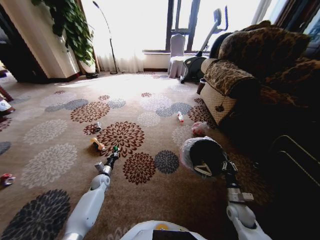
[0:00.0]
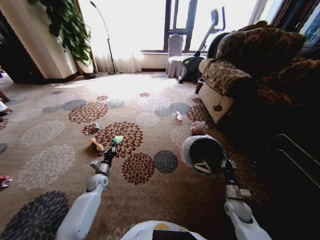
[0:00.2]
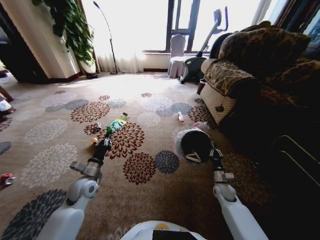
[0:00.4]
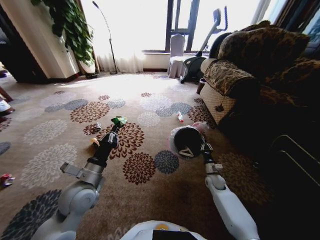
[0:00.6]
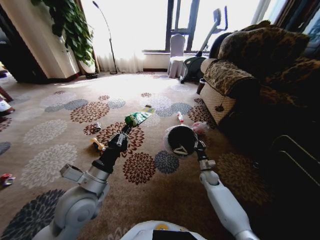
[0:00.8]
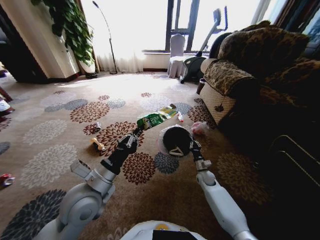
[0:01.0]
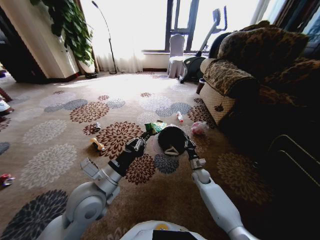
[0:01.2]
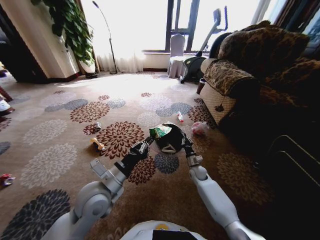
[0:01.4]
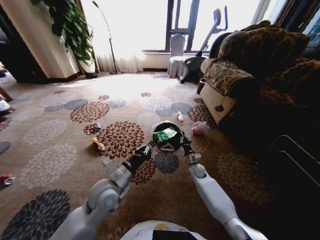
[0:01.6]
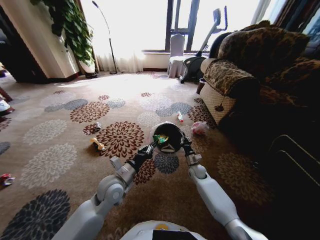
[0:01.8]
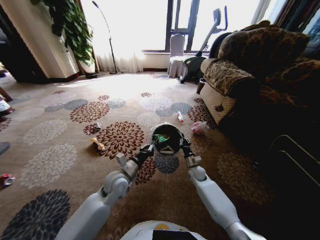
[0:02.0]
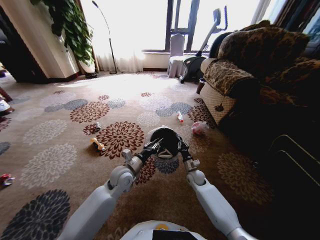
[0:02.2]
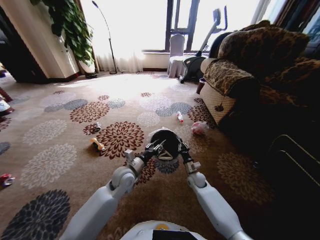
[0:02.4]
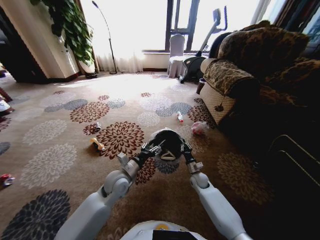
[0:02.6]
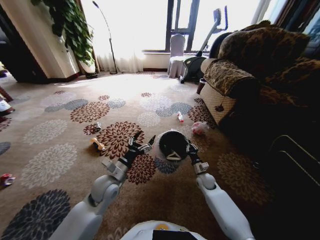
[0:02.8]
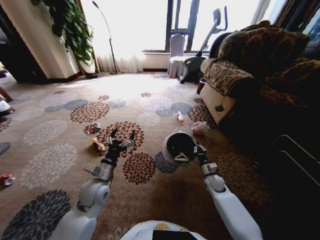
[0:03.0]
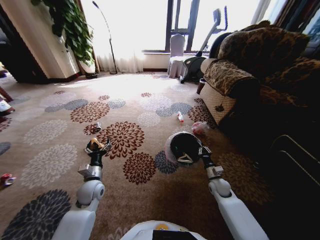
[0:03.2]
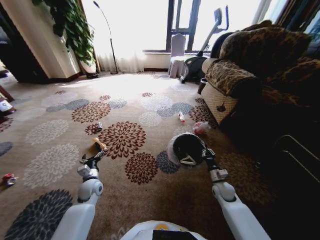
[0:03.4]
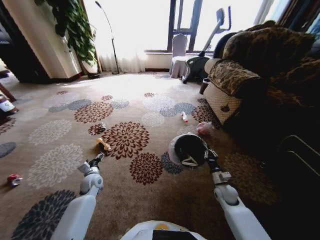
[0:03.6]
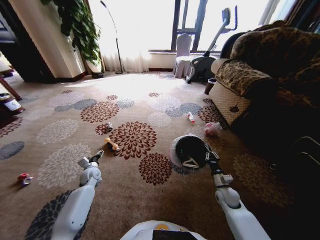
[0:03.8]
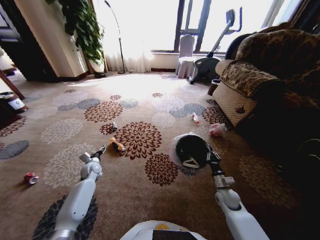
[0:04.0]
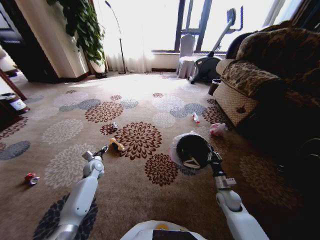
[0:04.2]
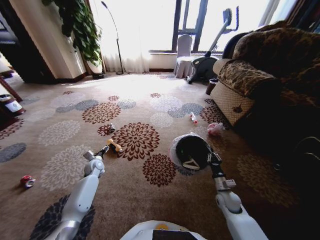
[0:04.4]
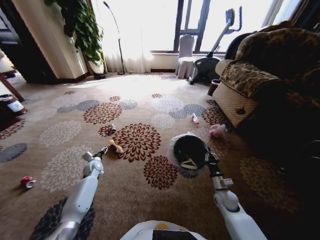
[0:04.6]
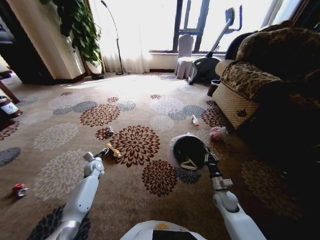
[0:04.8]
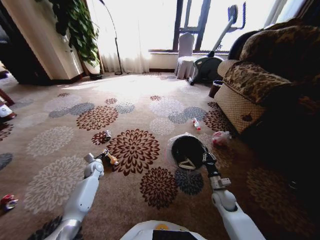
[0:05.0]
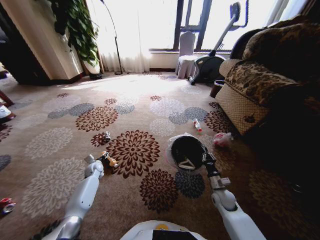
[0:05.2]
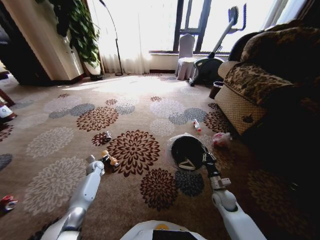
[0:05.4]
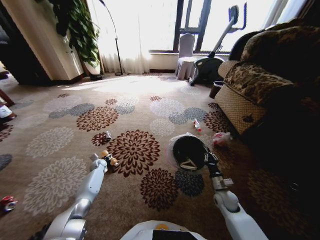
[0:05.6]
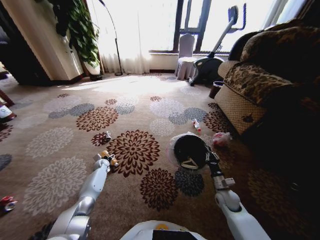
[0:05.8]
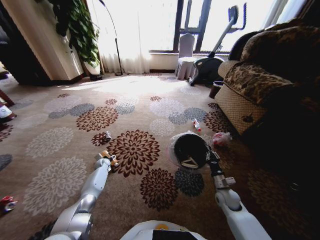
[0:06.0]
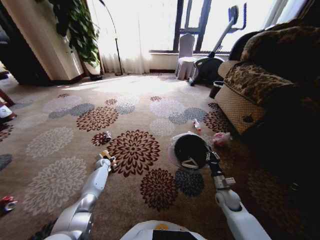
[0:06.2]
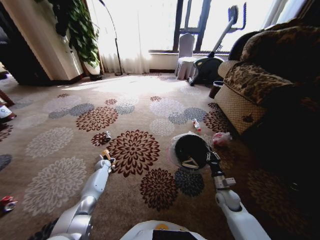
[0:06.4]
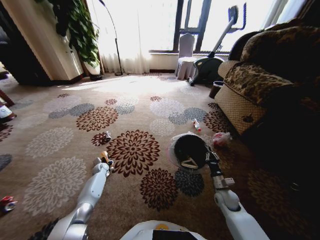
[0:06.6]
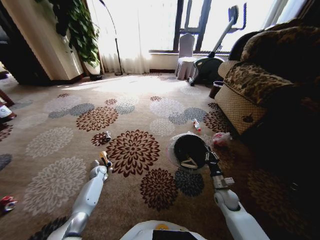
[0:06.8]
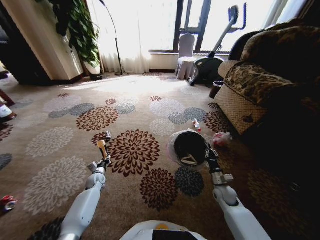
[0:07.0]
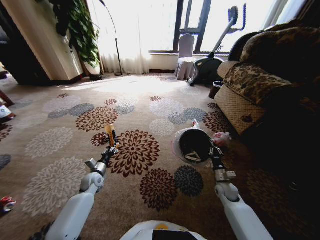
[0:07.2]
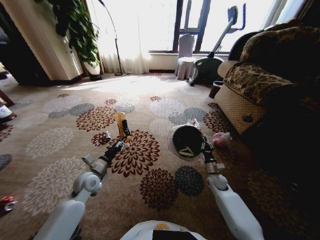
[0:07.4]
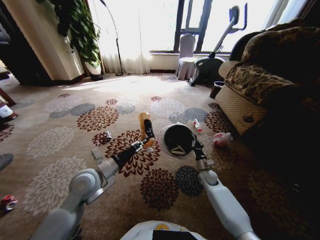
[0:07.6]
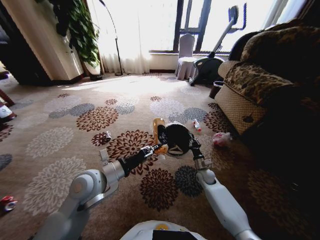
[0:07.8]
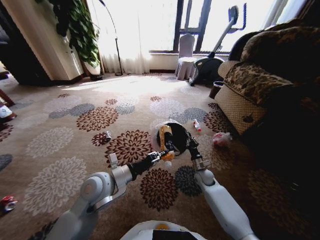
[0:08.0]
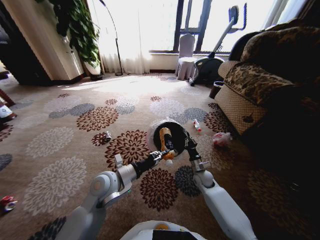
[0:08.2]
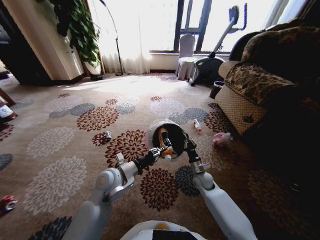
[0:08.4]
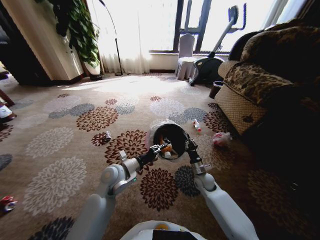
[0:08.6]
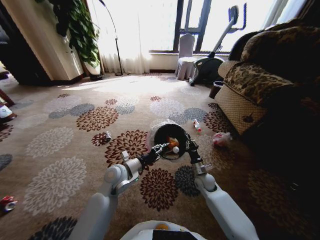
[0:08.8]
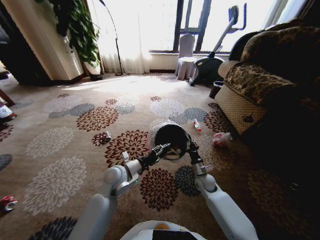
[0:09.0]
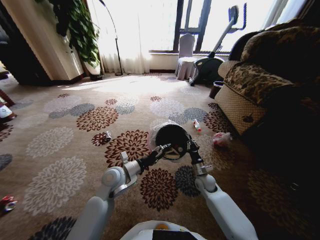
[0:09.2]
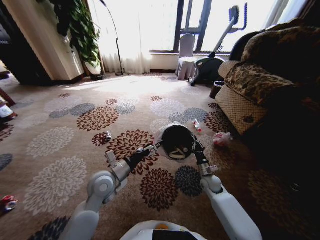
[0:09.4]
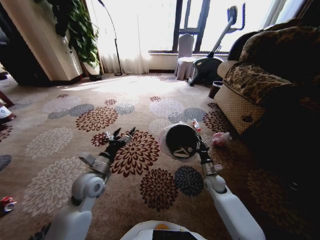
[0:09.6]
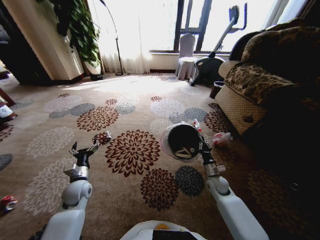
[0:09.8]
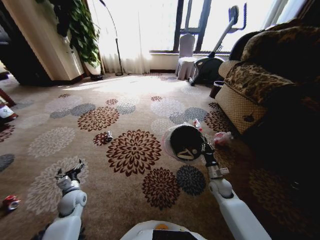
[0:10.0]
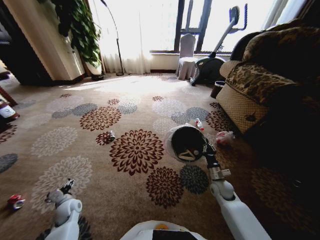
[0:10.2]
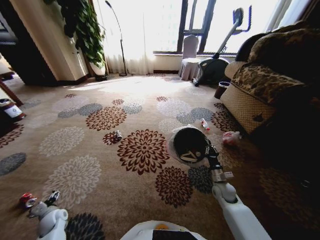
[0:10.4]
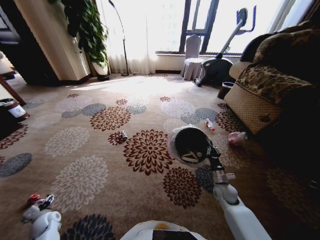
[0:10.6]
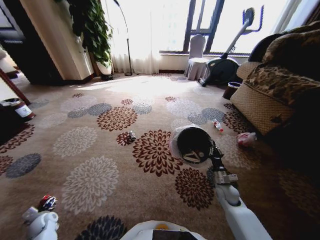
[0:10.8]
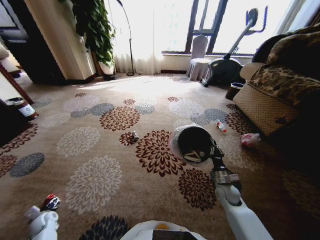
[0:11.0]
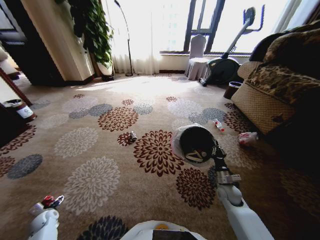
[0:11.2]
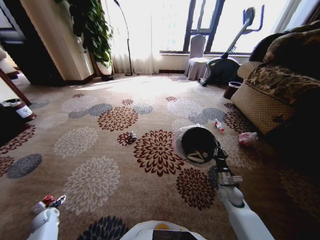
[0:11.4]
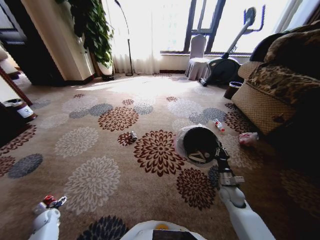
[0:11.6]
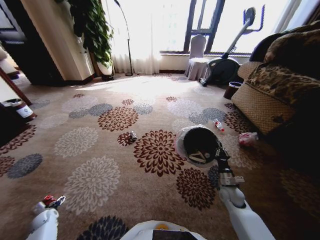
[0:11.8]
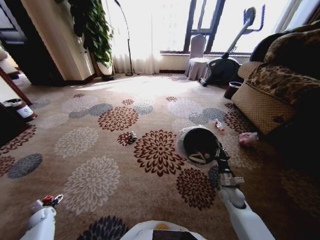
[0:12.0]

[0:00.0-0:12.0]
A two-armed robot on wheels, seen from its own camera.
Task of the whole recording: Pick up the trash from the ground and place it into the trash bin.
0.0 to 1.6 s: The right gripper goes about 25 cm forward and to the left. The left gripper is displaced upward, to the right and backward by about 35 cm.
1.6 to 3.0 s: The right gripper heads to the right and backward, covering approximately 10 cm. The left gripper is displaced to the left by some 5 cm, and opens its fingers.
3.0 to 4.4 s: The right gripper moves backward, roughly 10 cm, while the left gripper goes some 25 cm forward, to the left and downward.
4.4 to 6.0 s: The left gripper shifts about 10 cm downward and forward.
6.0 to 7.6 s: The right gripper heads forward, covering about 10 cm. The left gripper shifts approximately 40 cm upward, backward and to the right, and closes.
7.6 to 9.0 s: The right gripper ends up roughly 5 cm from where it was. The left gripper is displaced to the right and downward by some 10 cm, and opens up.
9.0 to 10.4 s: The left gripper shifts about 35 cm to the left and downward. The right gripper travels to the right by roughly 10 cm.
10.4 to 12.0 s: The left gripper moves to the left, approximately 10 cm.

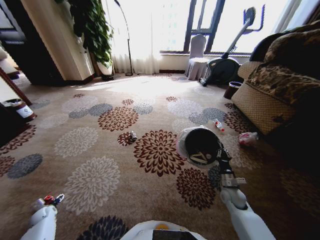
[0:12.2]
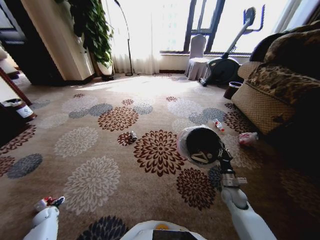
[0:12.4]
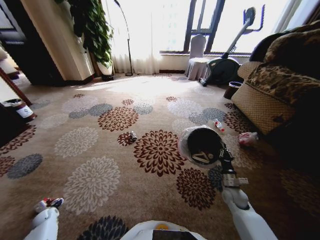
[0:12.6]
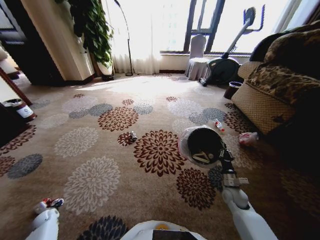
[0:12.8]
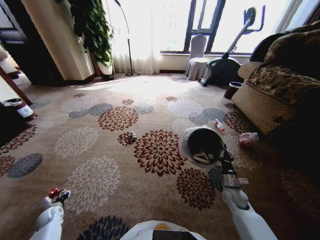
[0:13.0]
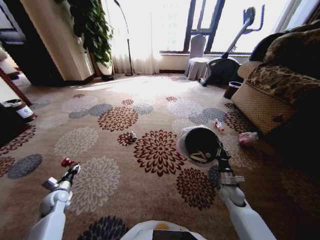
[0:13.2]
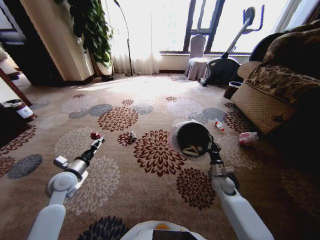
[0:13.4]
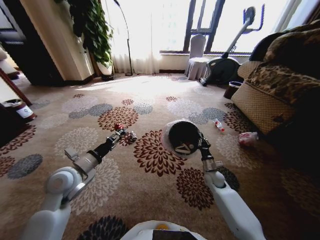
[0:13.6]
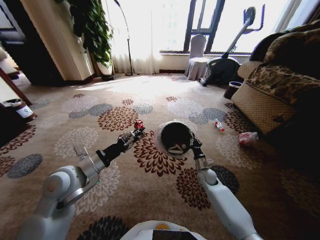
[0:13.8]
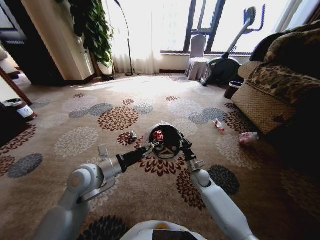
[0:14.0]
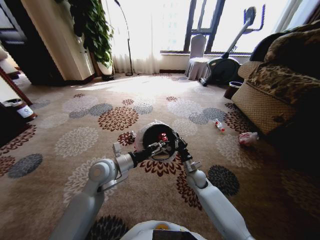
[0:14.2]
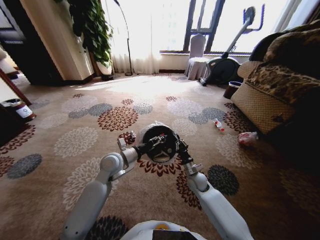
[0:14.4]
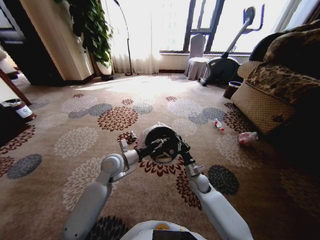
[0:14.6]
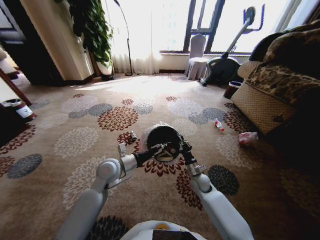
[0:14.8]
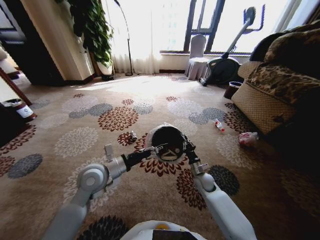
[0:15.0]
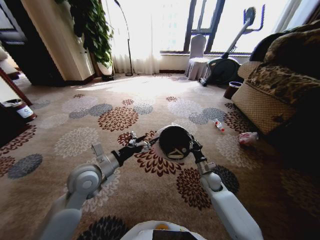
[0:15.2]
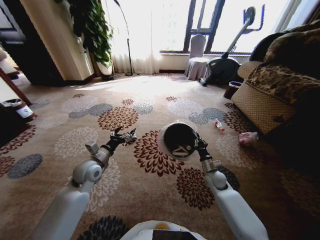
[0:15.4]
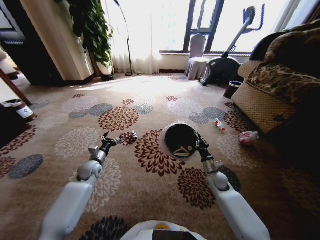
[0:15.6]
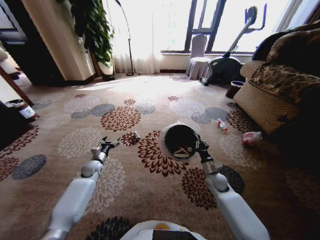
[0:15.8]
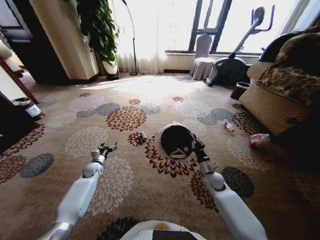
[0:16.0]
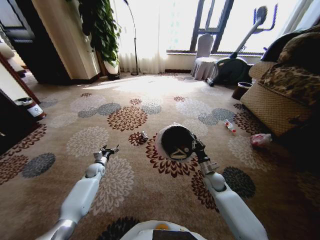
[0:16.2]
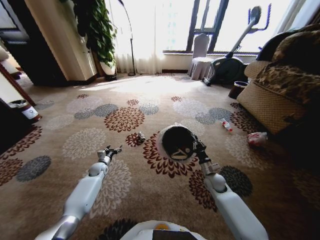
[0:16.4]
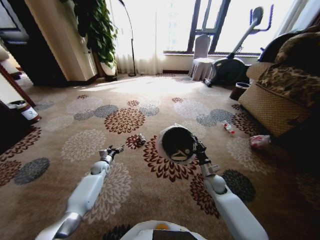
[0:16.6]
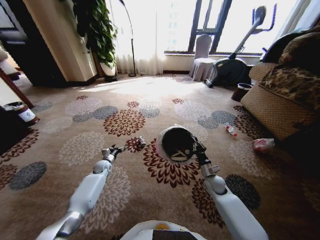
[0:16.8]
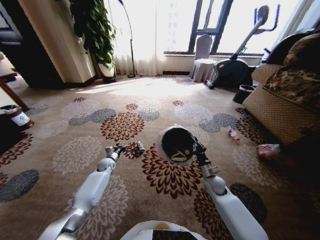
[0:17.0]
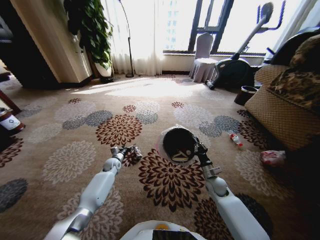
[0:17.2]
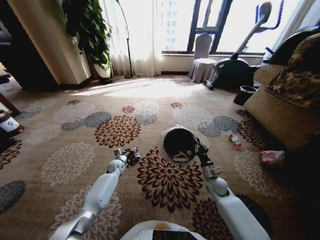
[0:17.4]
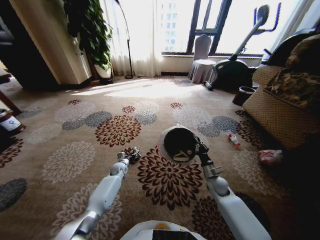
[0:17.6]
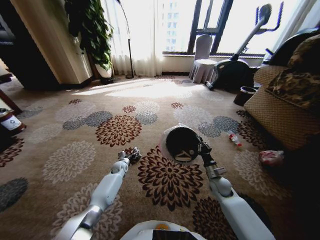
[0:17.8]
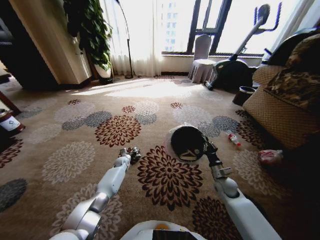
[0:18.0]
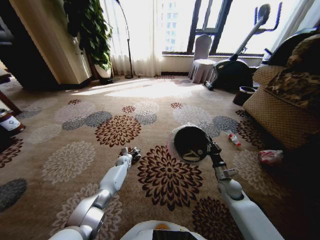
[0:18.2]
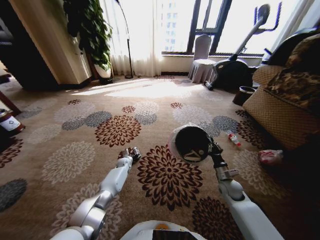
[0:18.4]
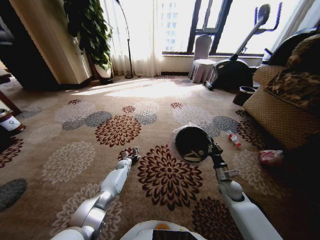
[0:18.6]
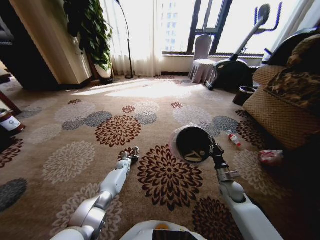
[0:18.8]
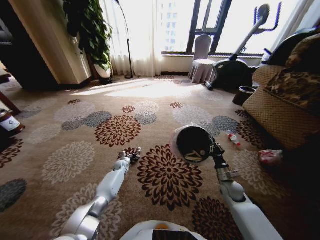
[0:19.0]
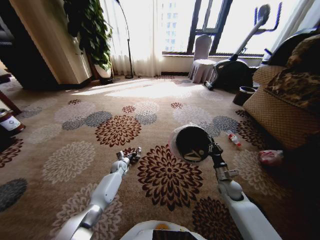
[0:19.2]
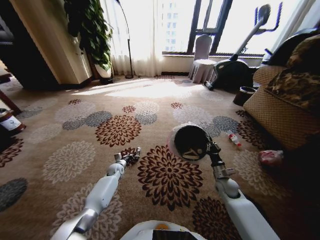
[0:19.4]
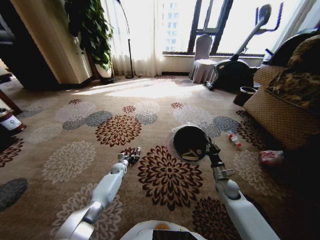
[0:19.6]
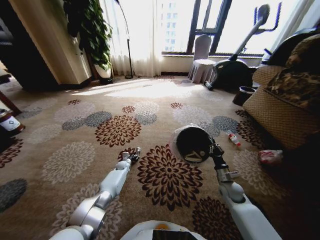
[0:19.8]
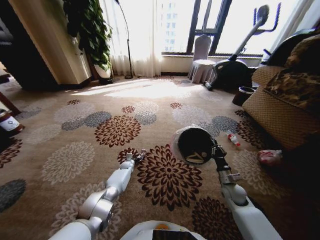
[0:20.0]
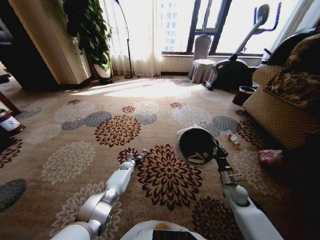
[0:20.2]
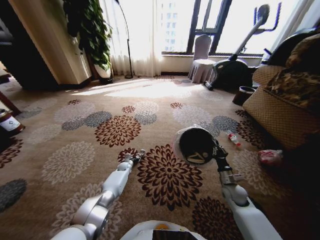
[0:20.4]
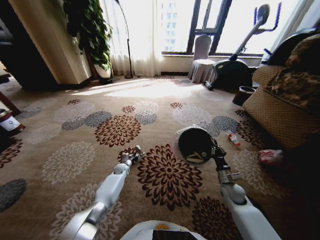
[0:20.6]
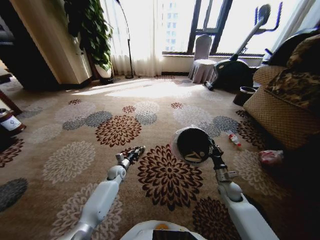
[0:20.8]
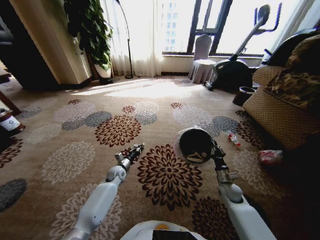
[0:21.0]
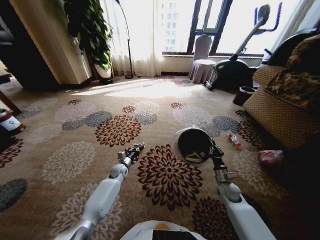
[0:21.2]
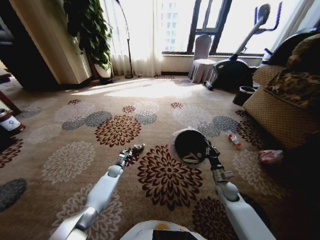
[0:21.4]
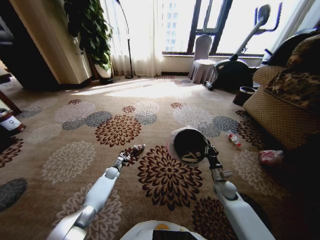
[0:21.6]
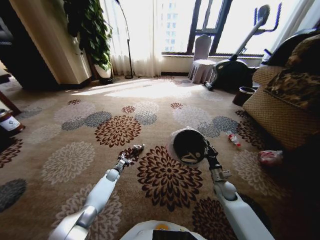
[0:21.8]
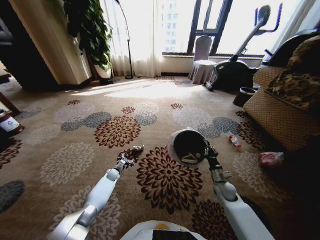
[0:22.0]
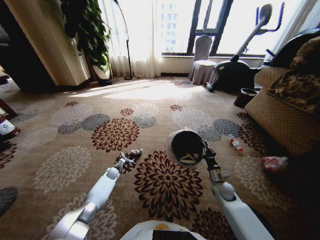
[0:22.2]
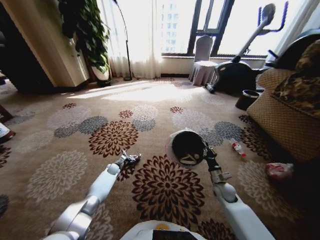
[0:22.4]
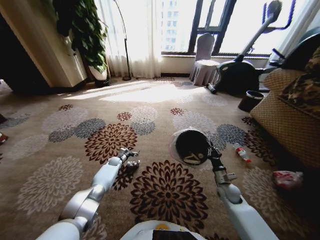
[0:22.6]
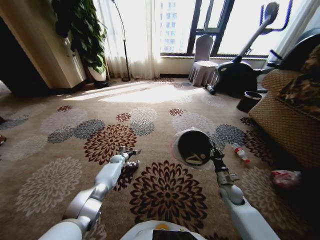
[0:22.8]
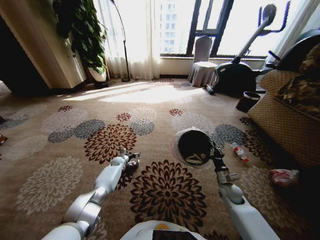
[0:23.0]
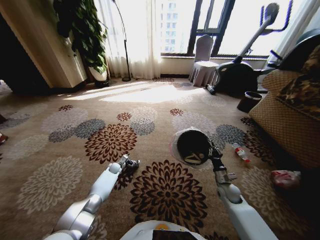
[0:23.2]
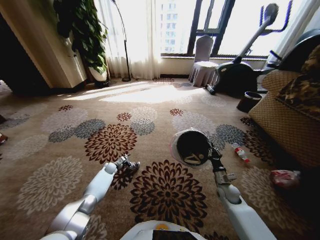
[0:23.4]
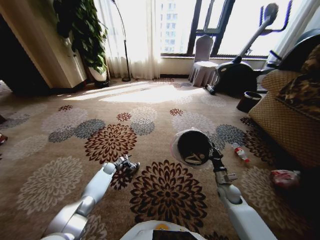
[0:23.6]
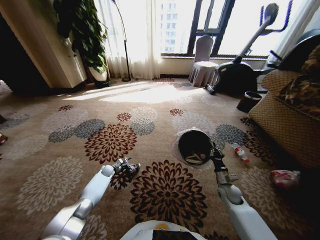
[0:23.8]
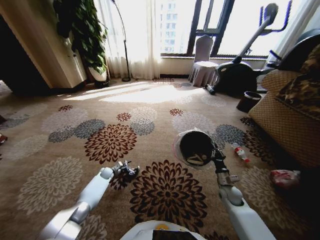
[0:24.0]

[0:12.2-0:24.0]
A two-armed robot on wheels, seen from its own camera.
Task of the whole recording: Pick up the trash from the ground and place it into the trash bin.
12.2 to 13.6 s: The left gripper is displaced upward and to the right by some 40 cm, and closes up; the right gripper moves forward and to the left, approximately 10 cm.
13.6 to 15.2 s: The right gripper travels to the left and back again, approximately 10 cm each way. Meanwhile the left gripper moves to the right, some 5 cm, and opens its fingers.
15.2 to 16.6 s: The left gripper goes about 35 cm downward, forward and to the left.
16.6 to 18.2 s: The right gripper heads to the right, covering approximately 5 cm. Meanwhile the left gripper goes about 15 cm to the right and forward.
18.2 to 19.6 s: The left gripper moves roughly 5 cm, and closes up.
19.6 to 21.0 s: The left gripper moves upward and backward, some 10 cm, and opens, then closes once more.
21.0 to 22.6 s: The left gripper is displaced forward, downward and to the left by approximately 15 cm, and opens its fingers.
22.6 to 24.0 s: The left gripper goes approximately 5 cm backward.
